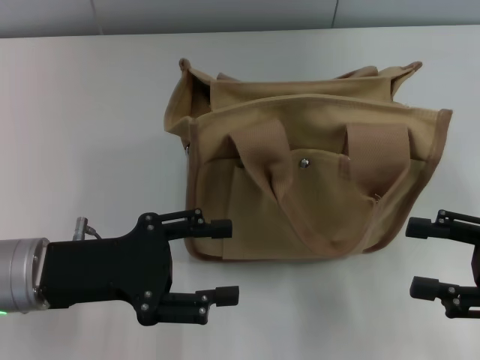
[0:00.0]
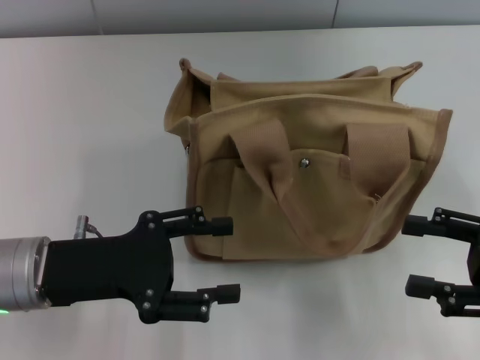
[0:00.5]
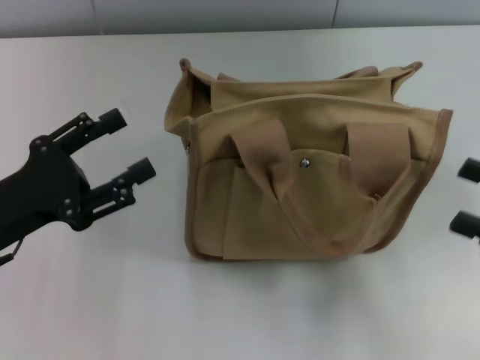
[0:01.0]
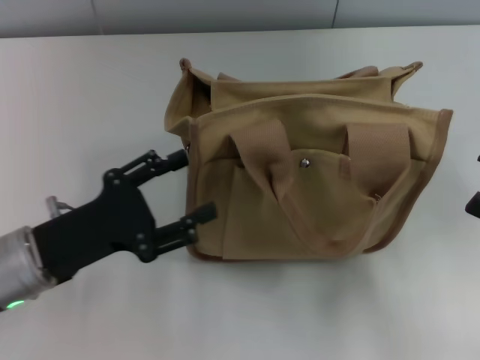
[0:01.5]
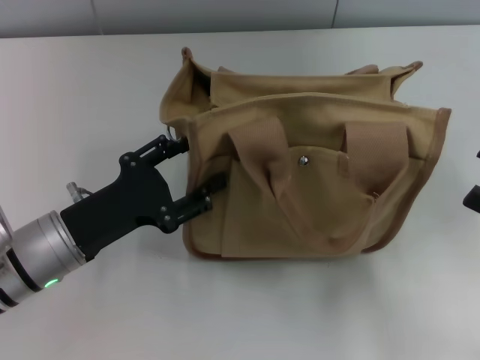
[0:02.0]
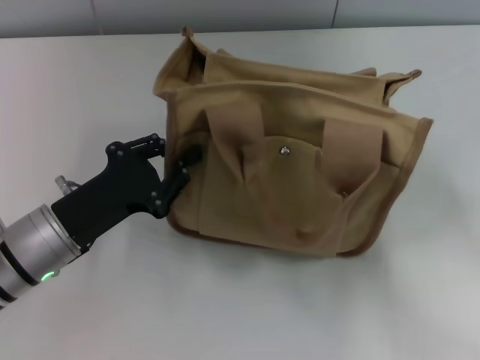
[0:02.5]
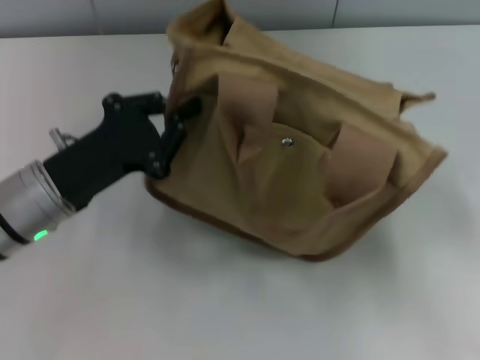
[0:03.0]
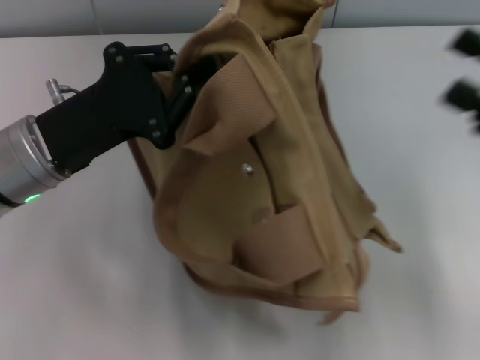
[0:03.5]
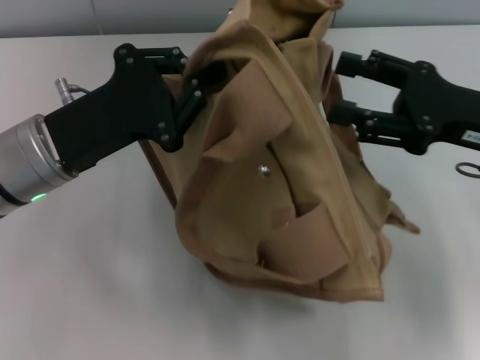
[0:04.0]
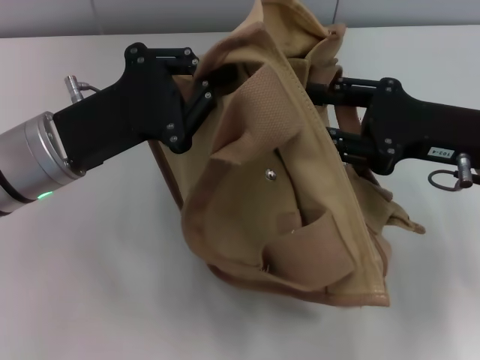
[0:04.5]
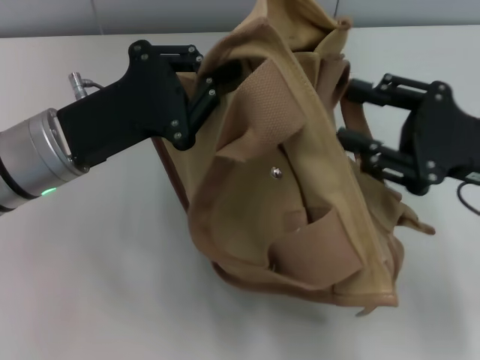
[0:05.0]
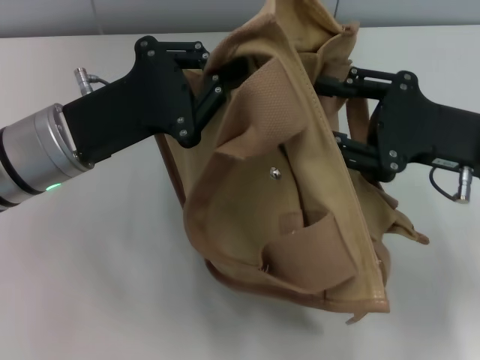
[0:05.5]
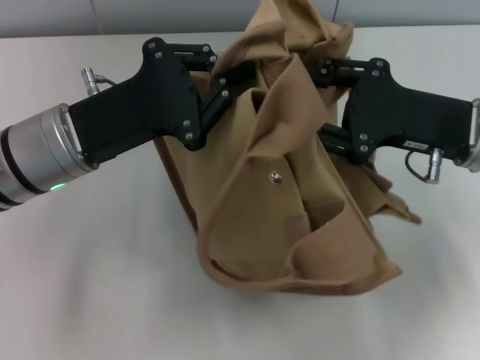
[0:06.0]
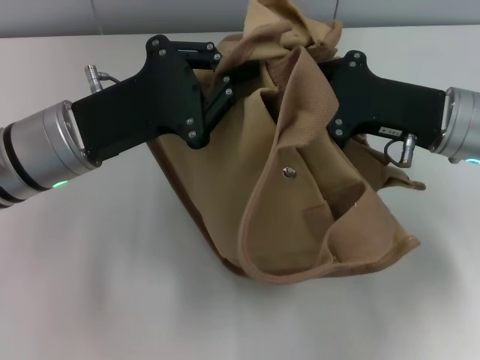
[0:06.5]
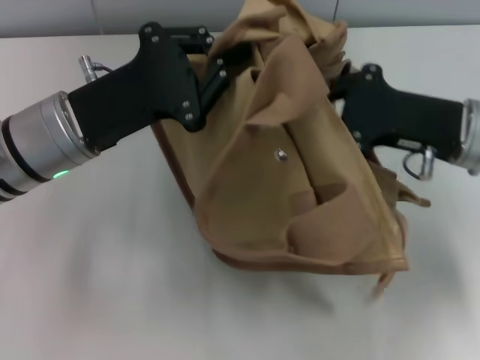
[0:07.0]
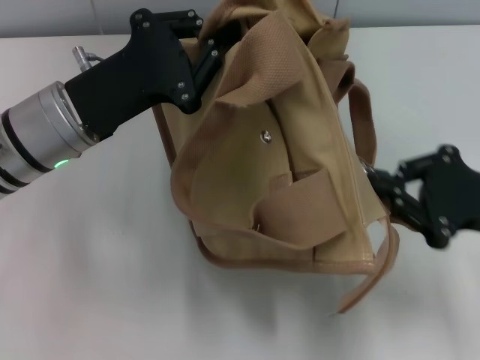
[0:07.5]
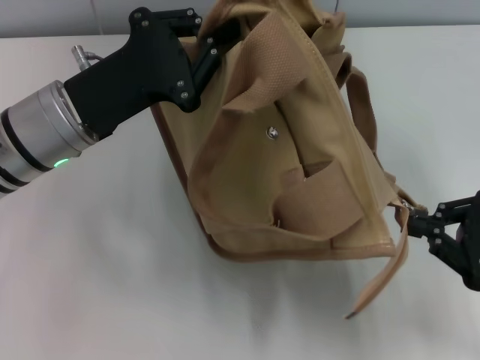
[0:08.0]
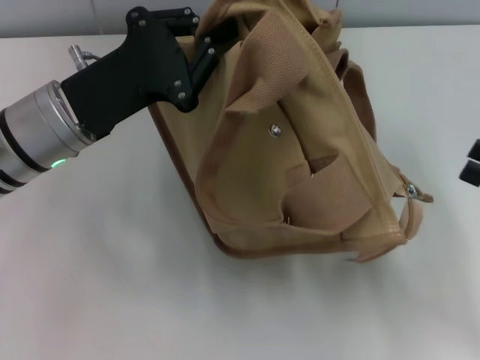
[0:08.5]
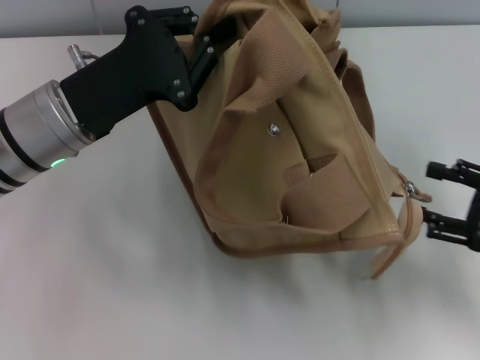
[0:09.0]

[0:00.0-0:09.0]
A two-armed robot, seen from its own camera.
Step, 0:00.0 to 0:08.0: Pull open the zipper with your right hand.
0:02.0 to 0:04.5: The right gripper is displaced forward and to the left by roughly 15 cm; the left gripper goes some 10 cm upward and forward, and closes its fingers.
0:04.5 to 0:07.0: The right gripper closes up.
0:07.0 to 0:09.0: The right gripper goes some 15 cm to the right and backward, and opens its fingers.

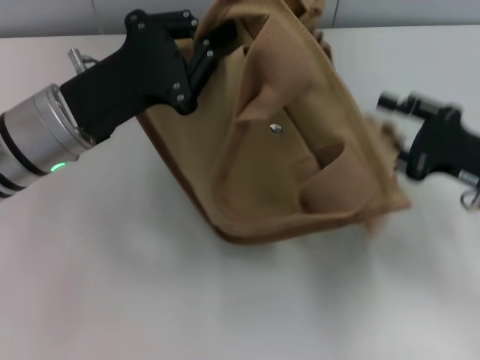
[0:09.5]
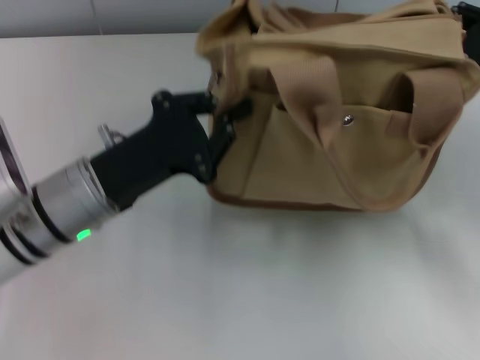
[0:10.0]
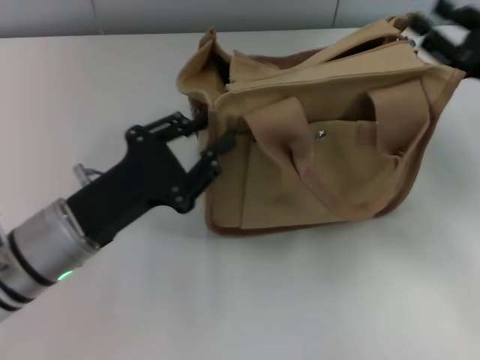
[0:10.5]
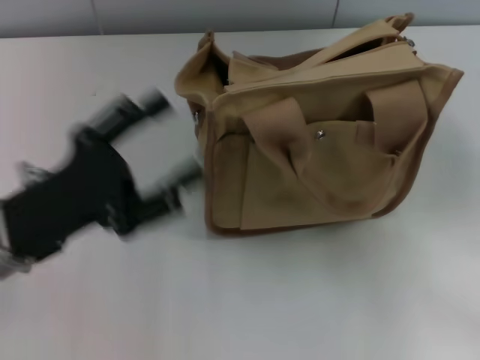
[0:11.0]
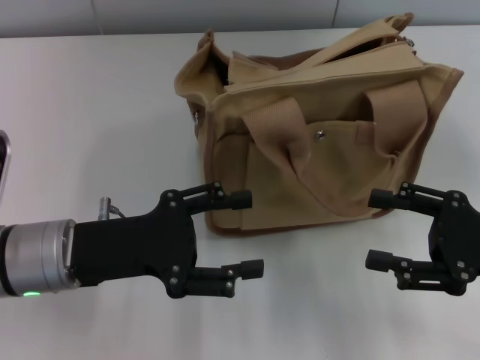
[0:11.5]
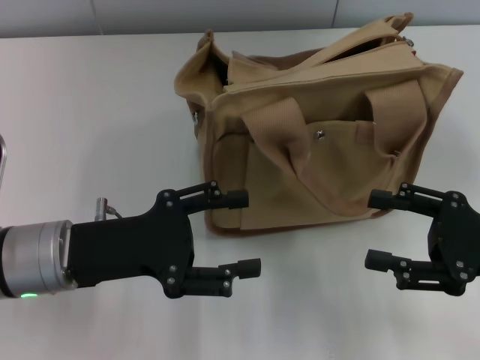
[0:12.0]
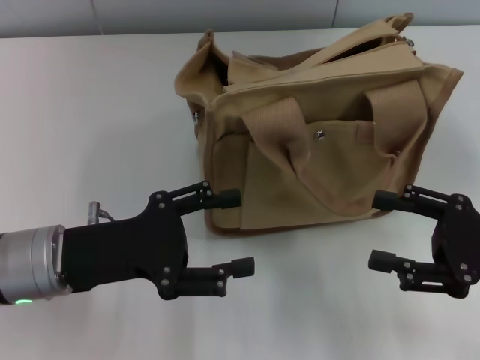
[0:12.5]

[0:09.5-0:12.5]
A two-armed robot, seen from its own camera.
0:09.5 to 0:11.0: The left gripper goes about 10 cm backward, and opens up, while the right gripper shifts by some 10 cm, and closes and opens again.
0:11.0 to 0:12.5: The right gripper moves about 5 cm.
